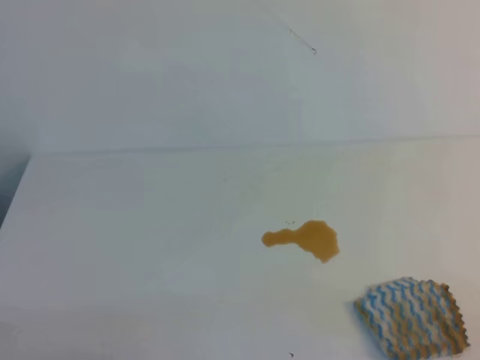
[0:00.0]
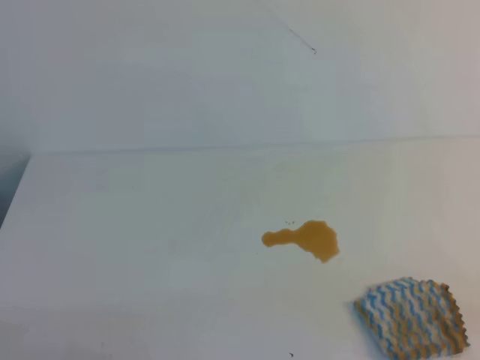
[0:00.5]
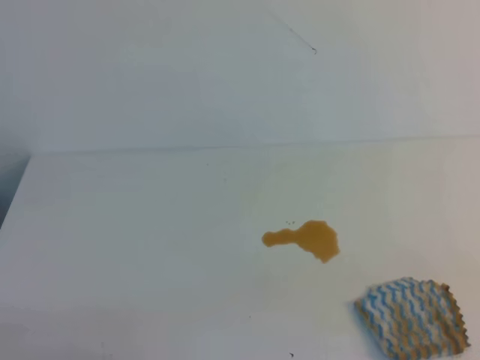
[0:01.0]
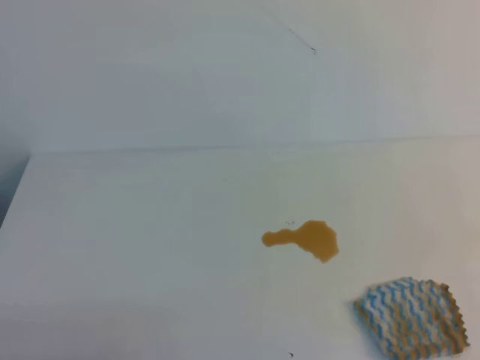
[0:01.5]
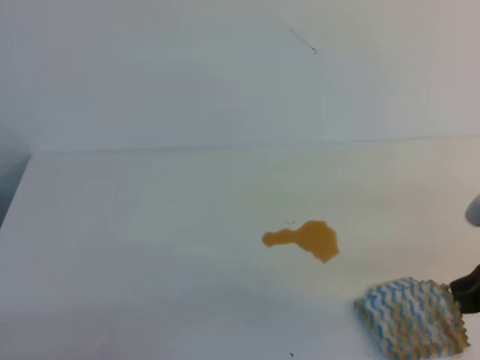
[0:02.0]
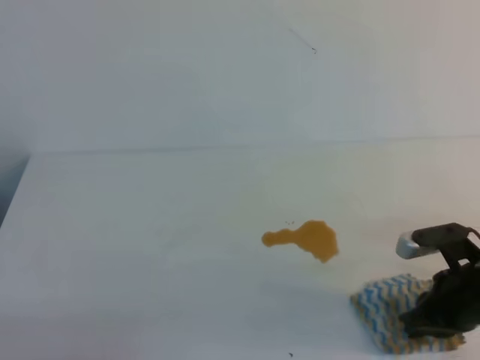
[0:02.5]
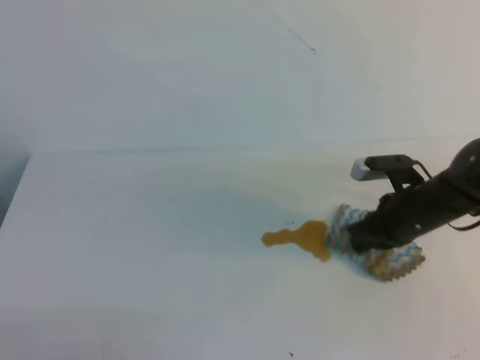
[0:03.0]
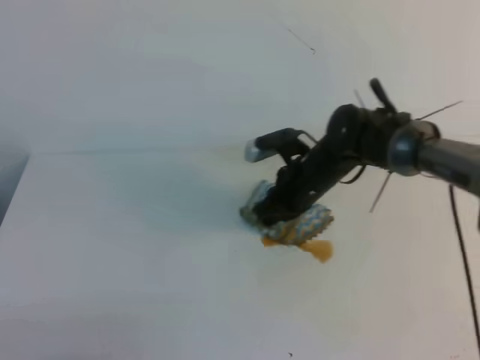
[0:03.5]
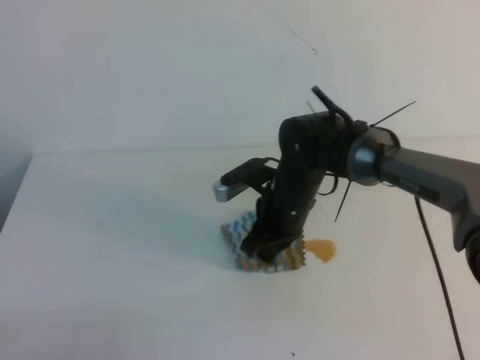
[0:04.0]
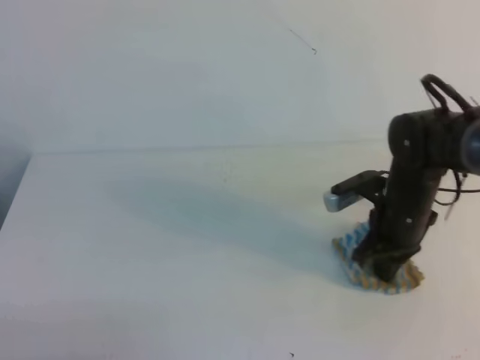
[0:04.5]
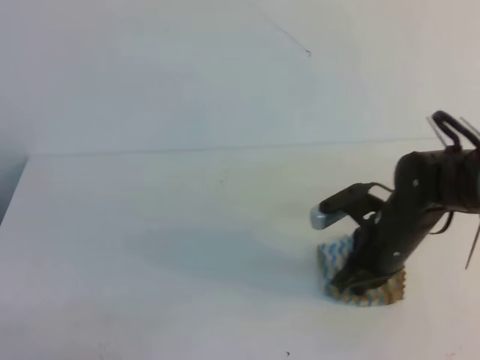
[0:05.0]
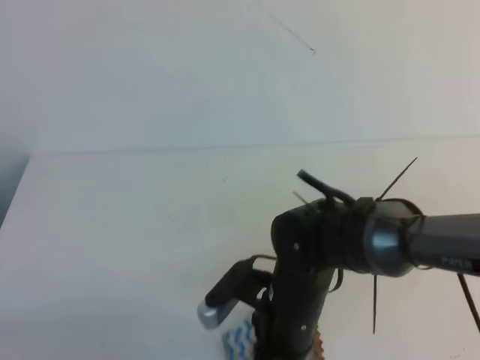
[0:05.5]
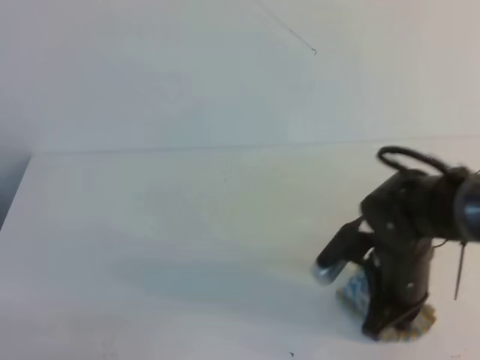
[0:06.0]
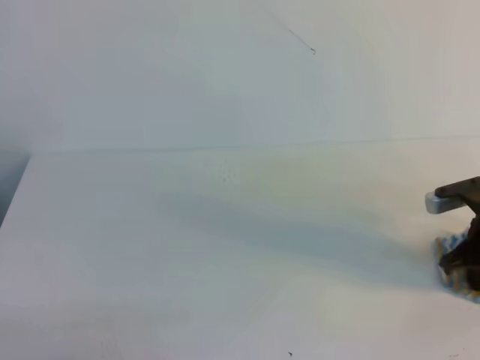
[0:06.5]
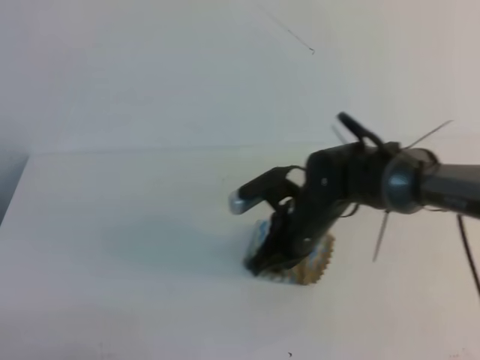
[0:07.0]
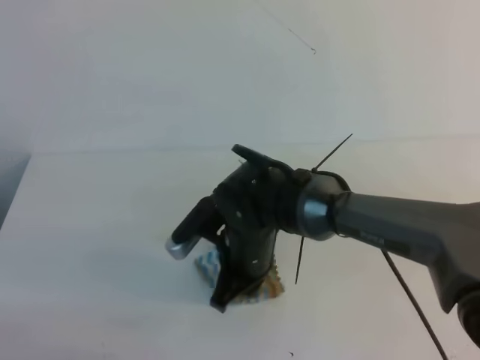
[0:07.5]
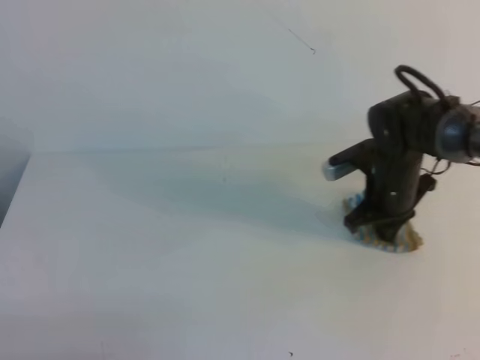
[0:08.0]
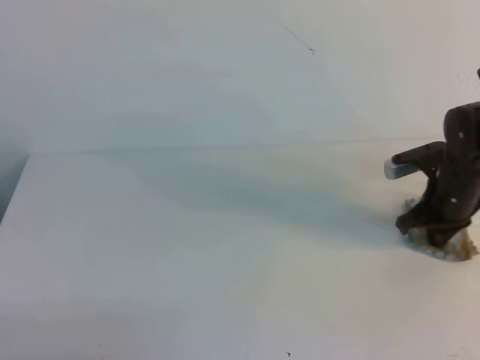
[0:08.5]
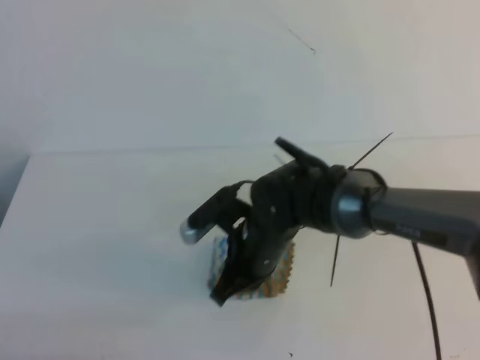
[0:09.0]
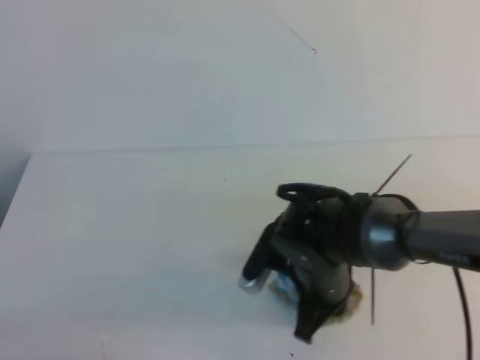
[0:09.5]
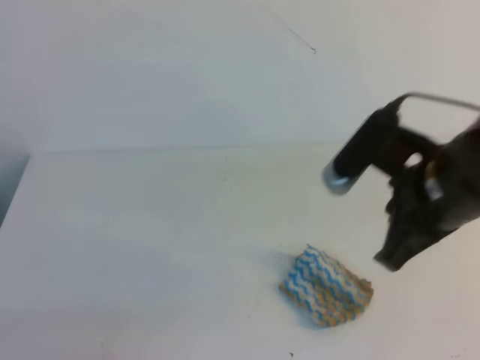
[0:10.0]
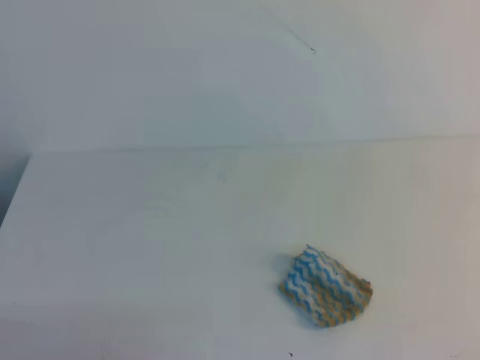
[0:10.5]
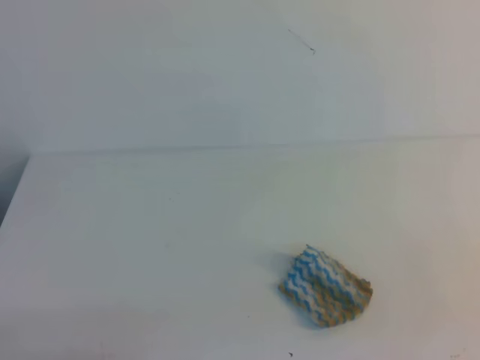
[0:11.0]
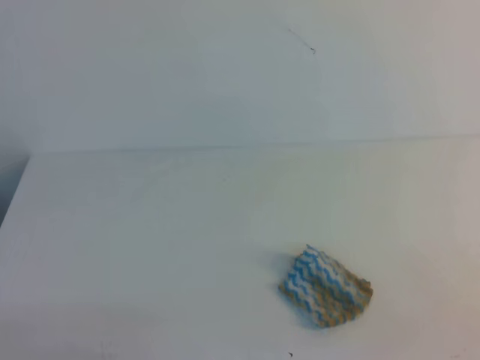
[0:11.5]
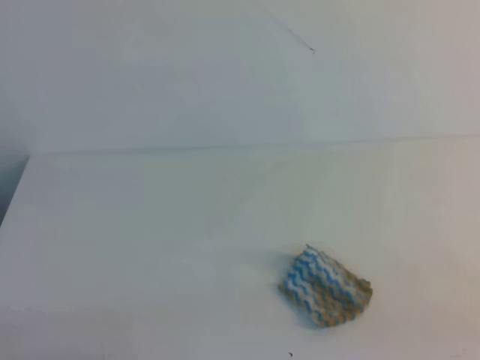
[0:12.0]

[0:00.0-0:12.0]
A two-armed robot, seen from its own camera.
0:00.0 to 0:02.0: The right gripper is displaced forward by roughly 15 cm.
0:02.0 to 0:04.0: The right gripper goes about 30 cm to the left, forward and downward, and opens.
0:04.0 to 0:06.0: The right gripper travels backward and to the right by some 15 cm.
0:06.0 to 0:08.0: The right gripper swings left and right, roughly 30 cm each way, with 2 reversals.
0:08.0 to 0:10.0: The right gripper goes left and right, roughly 20 cm each way, reversing 2 times, and closes.
0:10.0 to 0:12.0: The right gripper shifts approximately 30 cm backward and to the right.

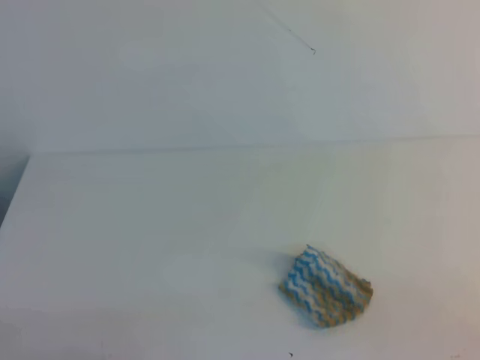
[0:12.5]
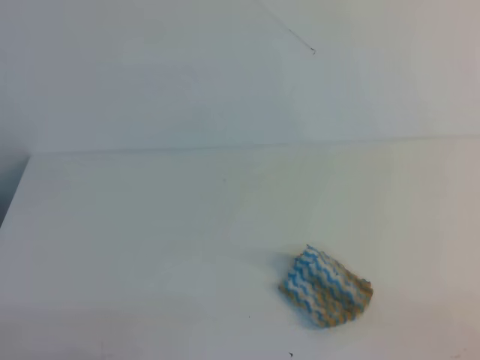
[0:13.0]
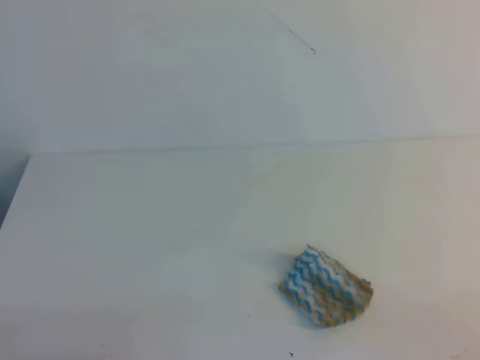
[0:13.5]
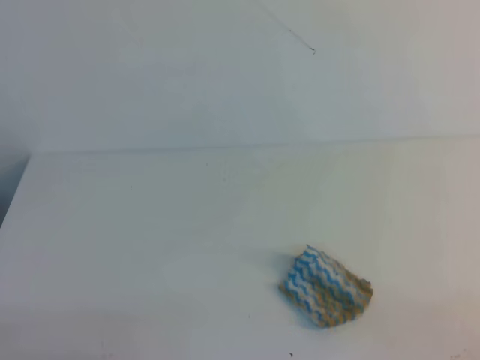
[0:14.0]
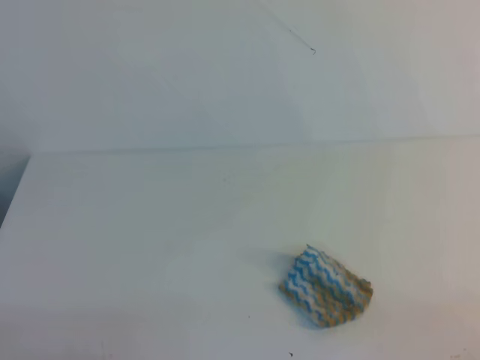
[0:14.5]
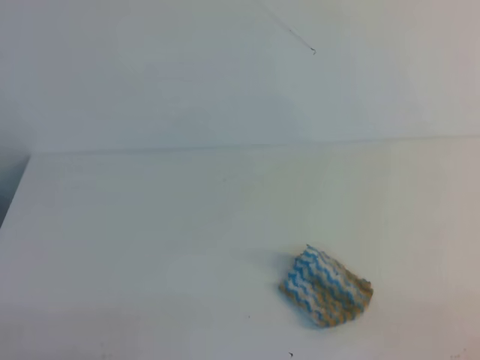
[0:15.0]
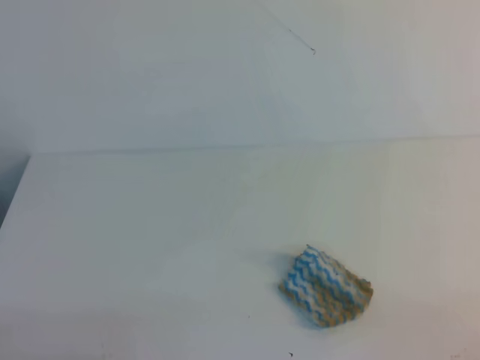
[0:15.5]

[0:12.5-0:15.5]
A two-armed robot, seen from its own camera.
0:14.0 to 0:15.5: Neither gripper changes place.

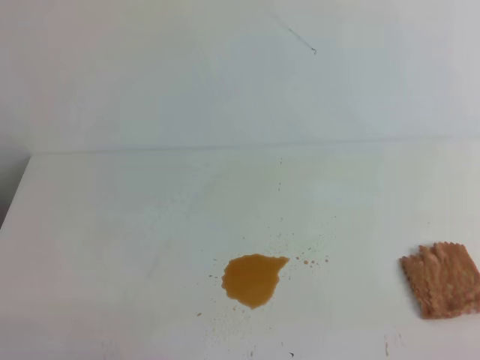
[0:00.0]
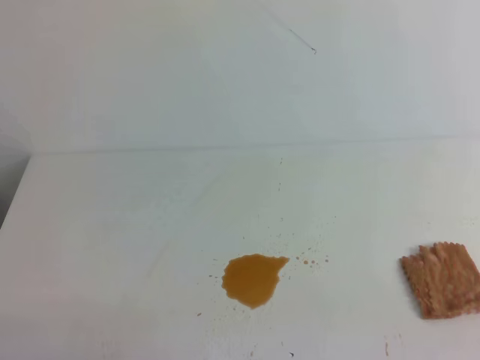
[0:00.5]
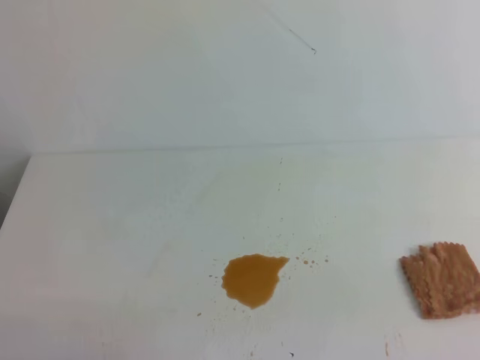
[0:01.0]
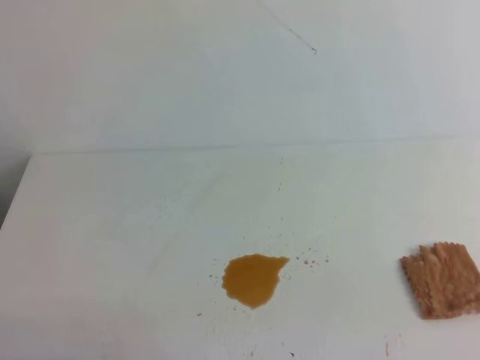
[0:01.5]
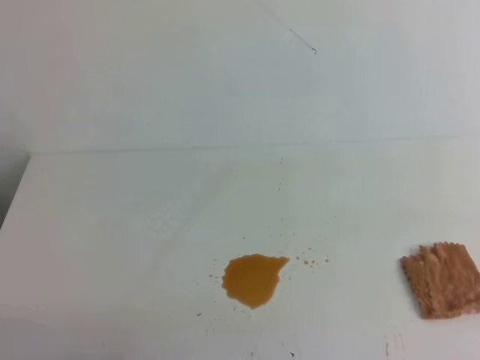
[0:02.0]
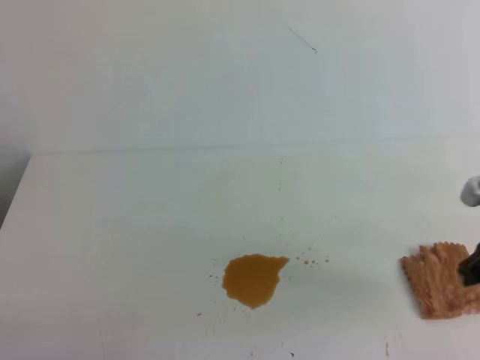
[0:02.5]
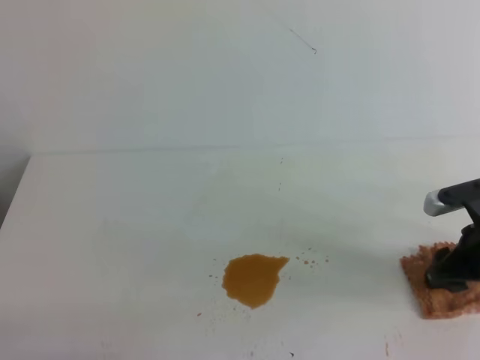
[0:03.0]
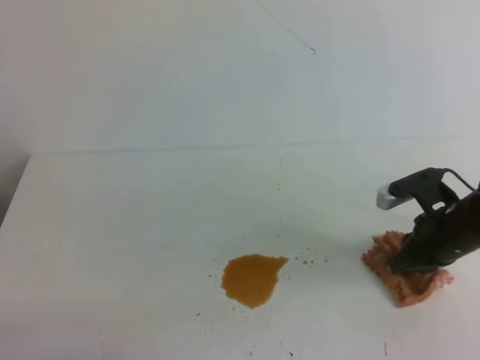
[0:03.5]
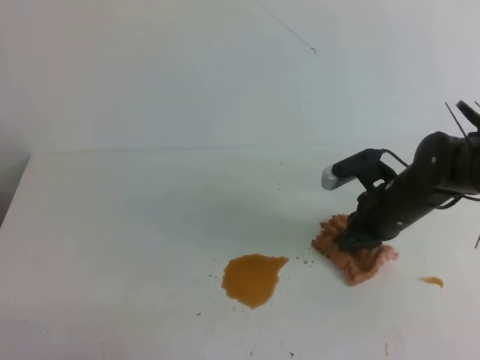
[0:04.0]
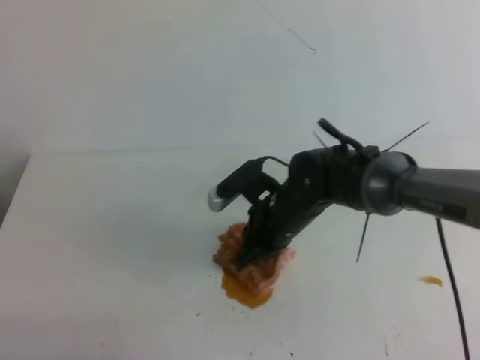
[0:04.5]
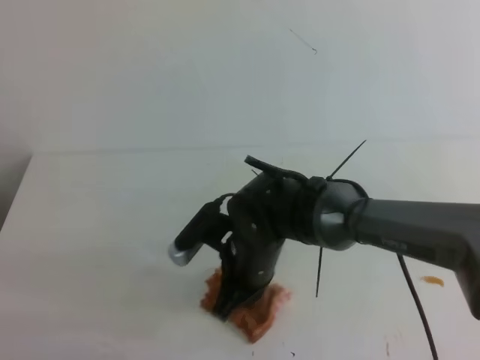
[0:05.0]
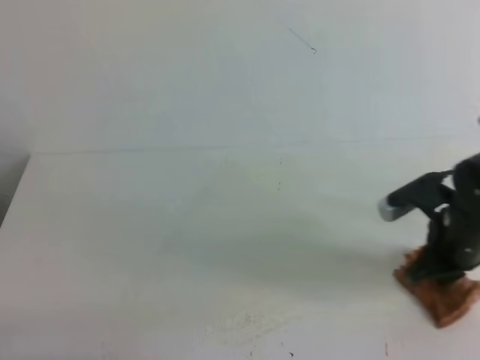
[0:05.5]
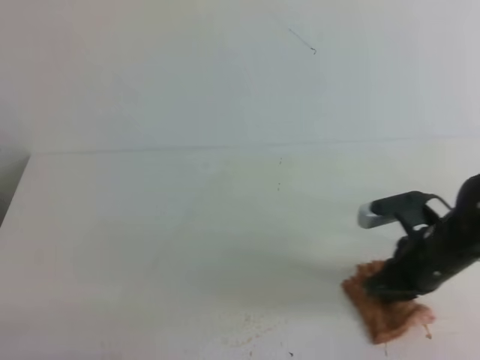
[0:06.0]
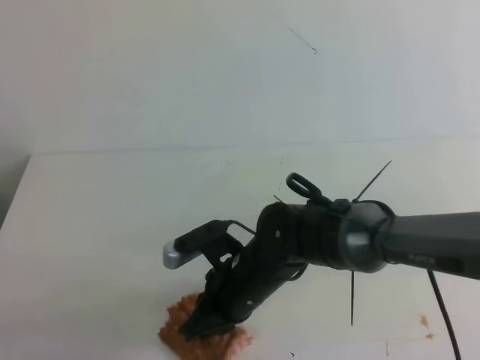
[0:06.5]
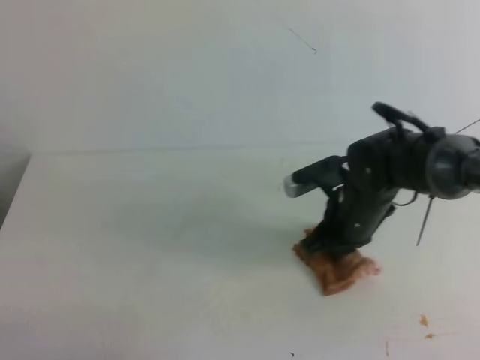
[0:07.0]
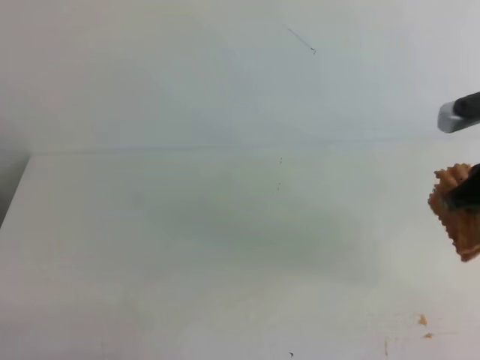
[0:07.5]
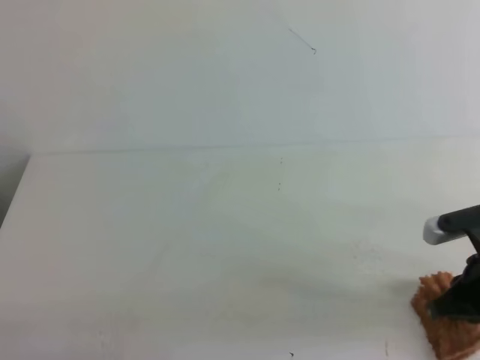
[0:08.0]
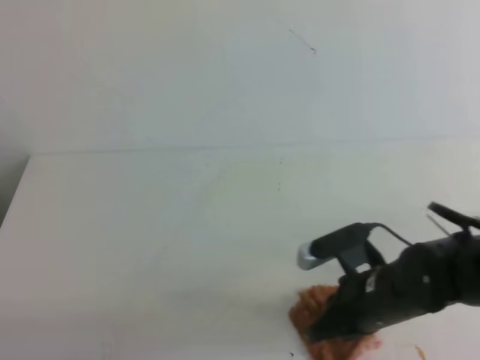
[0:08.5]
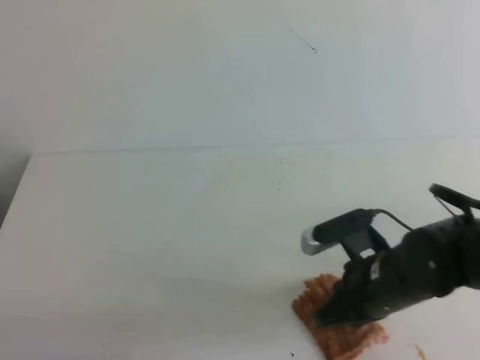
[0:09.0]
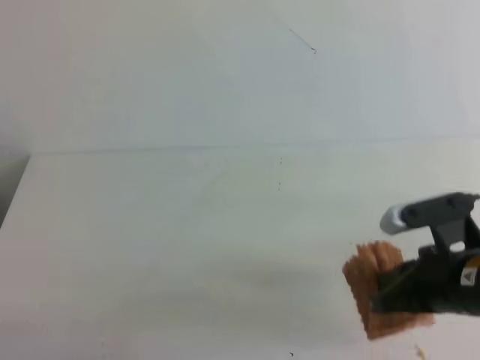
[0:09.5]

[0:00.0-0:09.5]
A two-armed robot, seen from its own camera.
0:02.0 to 0:04.0: The right gripper is displaced forward, downward and to the left by approximately 35 cm, and opens and closes again.
0:04.0 to 0:05.5: The right gripper goes to the left and returns, some 15 cm each way.
0:05.5 to 0:07.5: The right gripper heads upward, covering about 10 cm, and moves approximately 20 cm to the left and comes back.
0:07.5 to 0:09.5: The right gripper is displaced backward and to the left by approximately 10 cm.

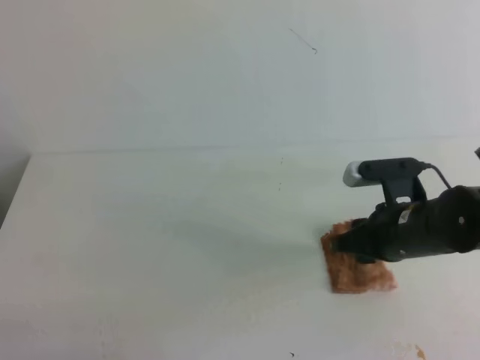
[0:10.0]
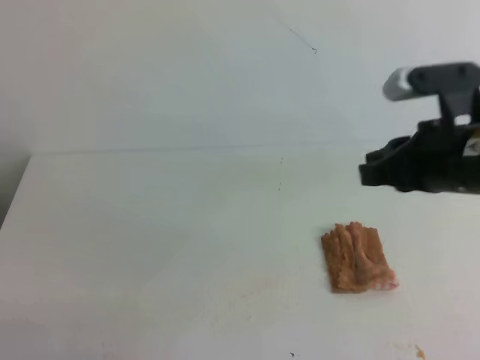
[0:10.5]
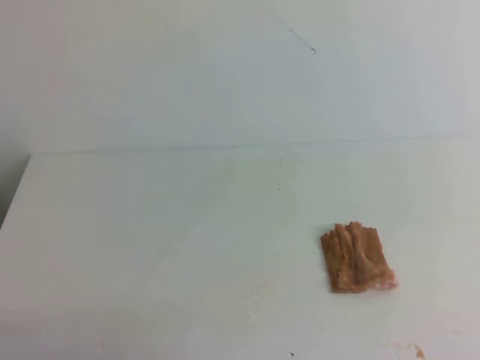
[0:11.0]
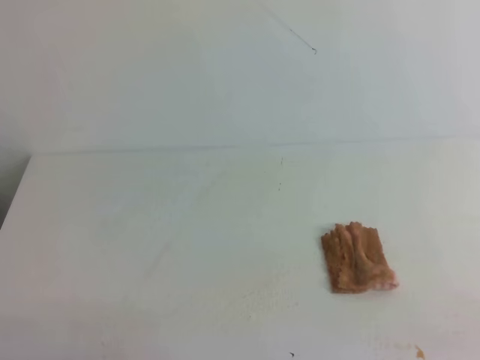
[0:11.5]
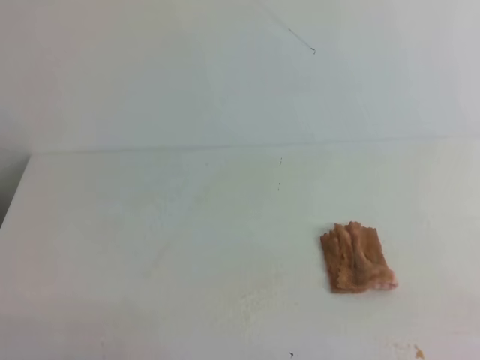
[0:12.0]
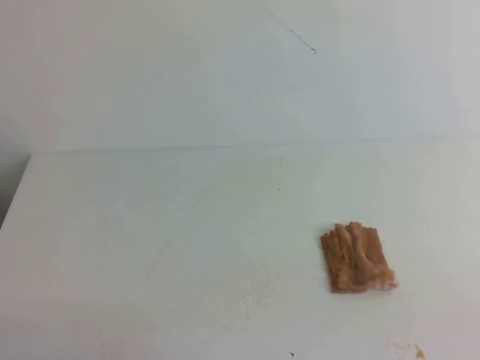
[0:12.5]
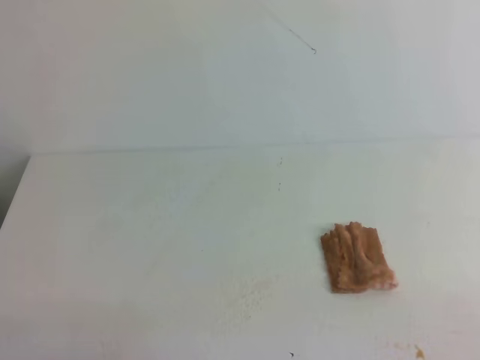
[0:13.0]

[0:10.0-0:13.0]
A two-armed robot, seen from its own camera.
0:10.0 to 0:11.5: The right gripper travels backward and to the right by roughly 25 cm, and closes.
